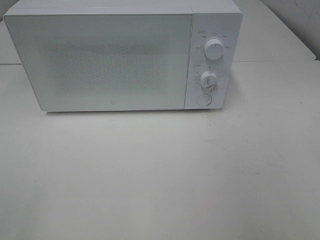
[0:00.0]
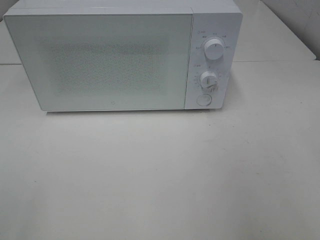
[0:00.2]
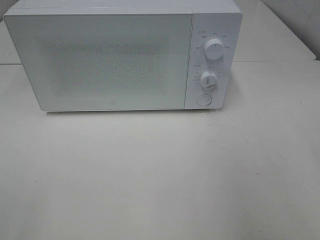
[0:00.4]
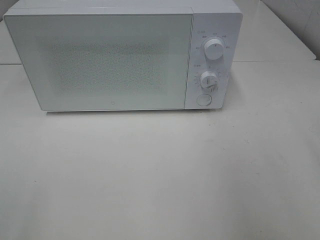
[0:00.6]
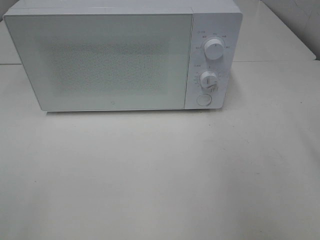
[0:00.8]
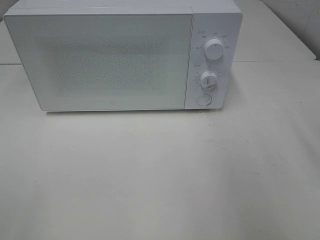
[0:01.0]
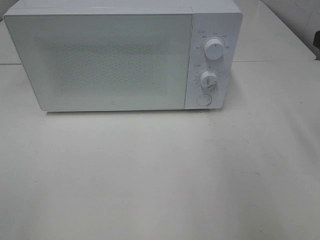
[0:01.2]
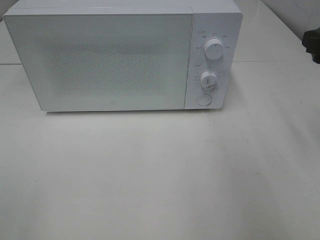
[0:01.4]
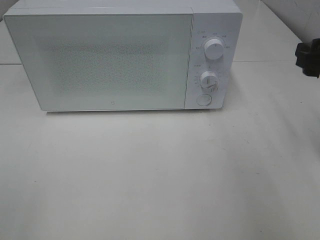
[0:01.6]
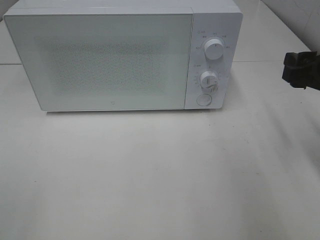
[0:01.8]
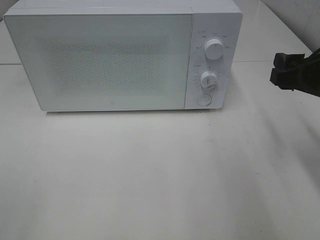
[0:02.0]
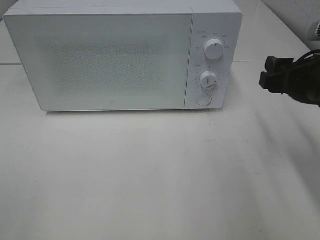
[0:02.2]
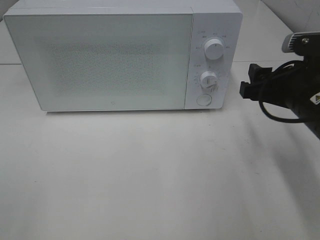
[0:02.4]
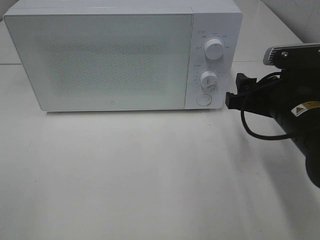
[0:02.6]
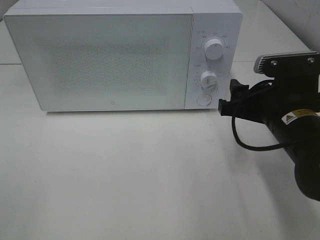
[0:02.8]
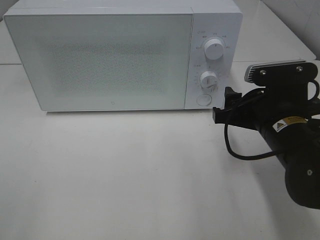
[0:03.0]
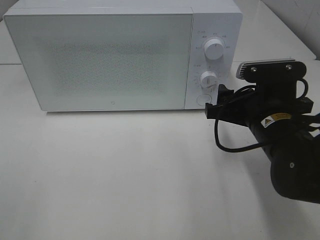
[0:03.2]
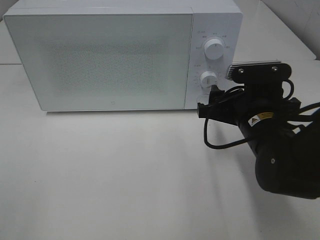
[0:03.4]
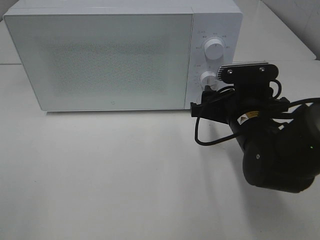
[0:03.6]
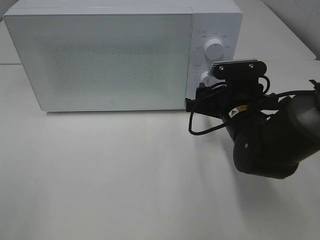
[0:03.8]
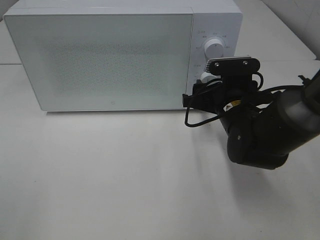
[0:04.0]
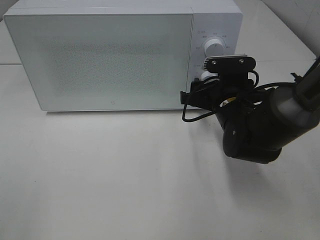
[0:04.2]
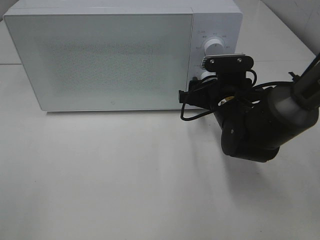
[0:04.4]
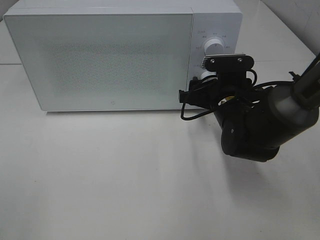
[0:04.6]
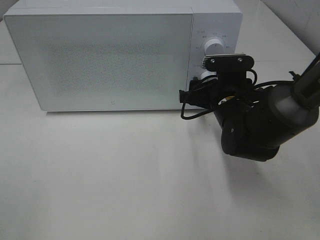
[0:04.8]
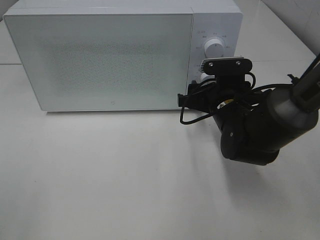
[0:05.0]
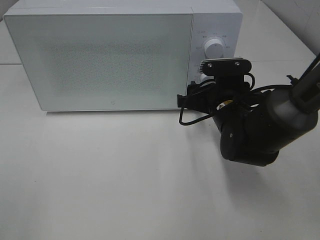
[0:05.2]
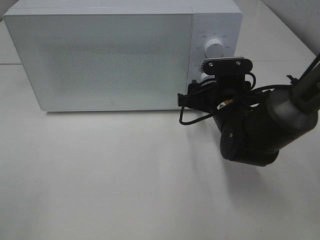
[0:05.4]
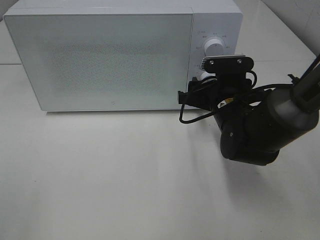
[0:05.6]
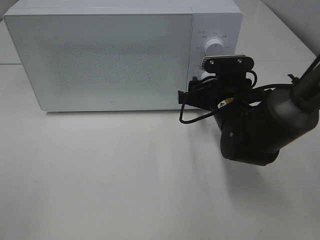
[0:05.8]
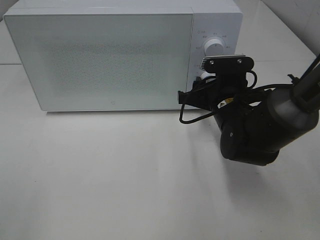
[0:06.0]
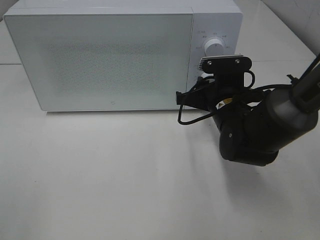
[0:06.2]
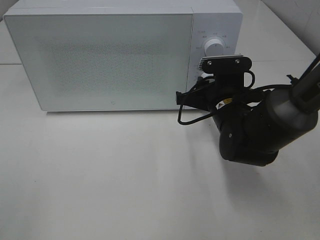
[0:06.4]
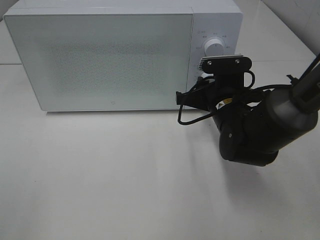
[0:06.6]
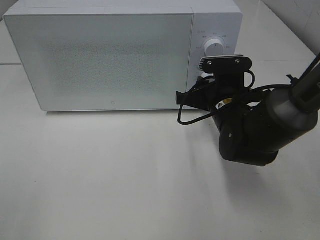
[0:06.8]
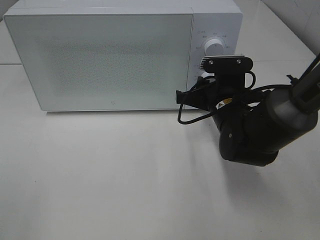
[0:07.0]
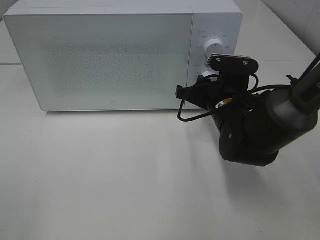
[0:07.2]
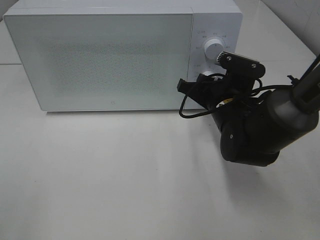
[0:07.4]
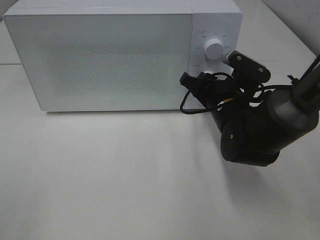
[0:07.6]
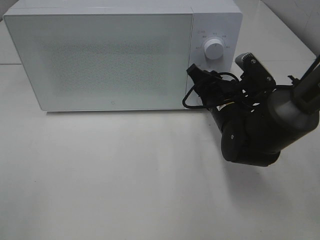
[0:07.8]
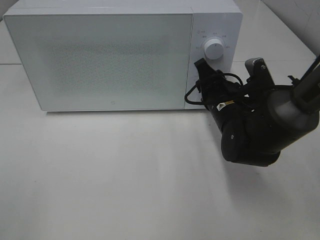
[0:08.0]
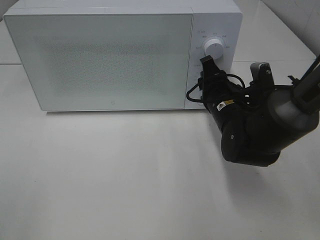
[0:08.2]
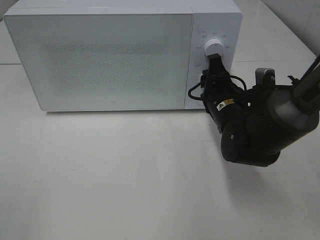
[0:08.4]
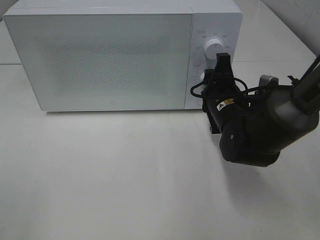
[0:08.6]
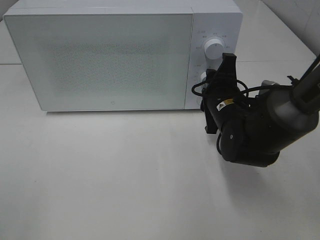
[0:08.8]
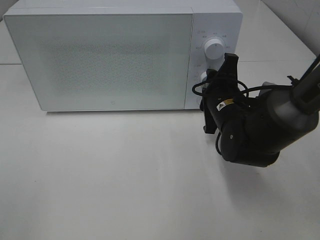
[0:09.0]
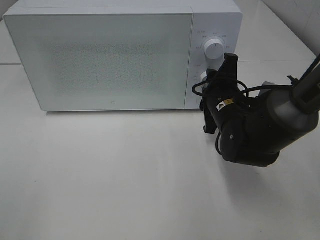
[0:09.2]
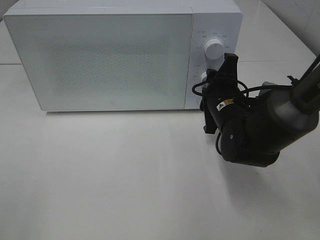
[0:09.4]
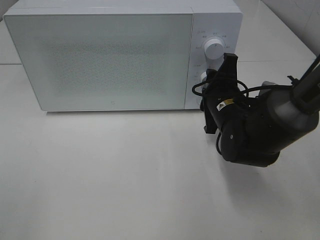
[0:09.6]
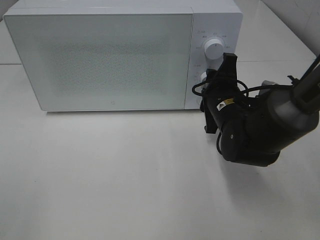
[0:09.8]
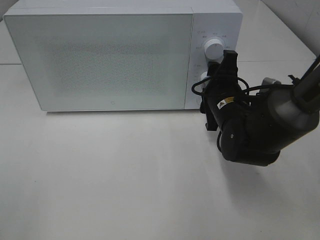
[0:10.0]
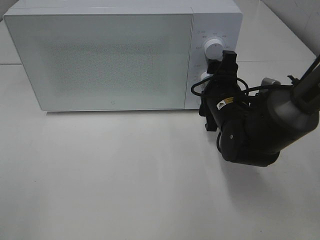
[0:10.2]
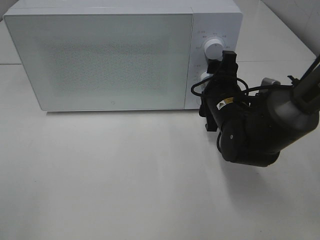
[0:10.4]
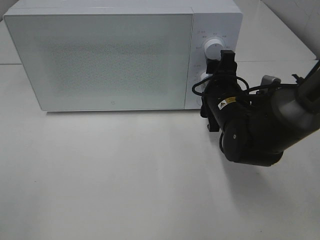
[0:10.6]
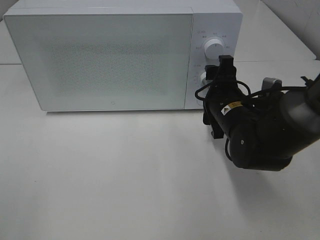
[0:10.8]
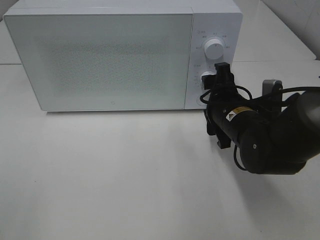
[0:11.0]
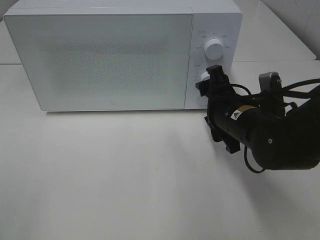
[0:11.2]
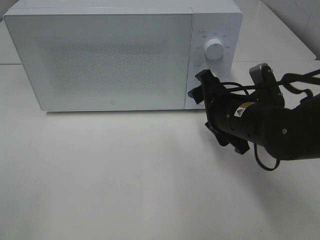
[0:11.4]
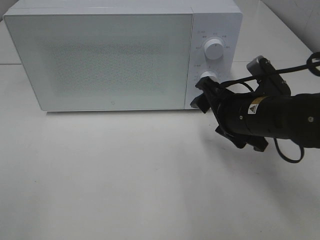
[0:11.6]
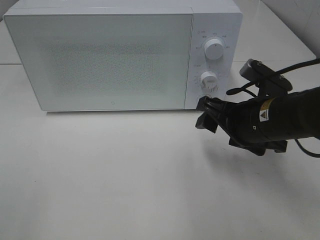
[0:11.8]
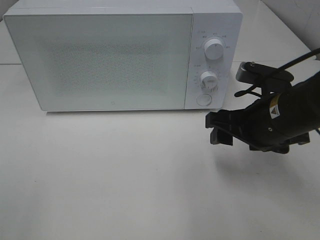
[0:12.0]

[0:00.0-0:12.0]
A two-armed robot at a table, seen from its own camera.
Task of the whole recording: Heat Sandwich.
Step, 0:00.0 to 0:10.6: Right hand: twist timer button.
0:00.0 to 0:01.6: The right gripper heads forward and downward, covering approximately 20 cm.
0:01.6 to 0:03.0: The right gripper moves to the left and downward, roughly 15 cm.
0:03.0 to 0:04.4: The right gripper is displaced forward by some 10 cm.
0:04.4 to 0:06.0: Neither gripper changes place.
0:09.0 to 0:10.4: Both grippers stay put.
0:10.4 to 0:12.0: The right gripper travels backward and upward by roughly 10 cm.

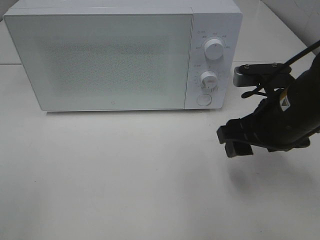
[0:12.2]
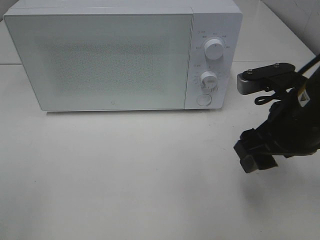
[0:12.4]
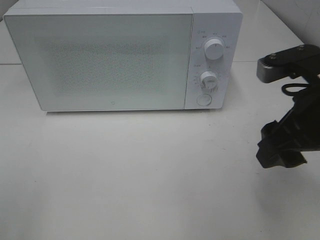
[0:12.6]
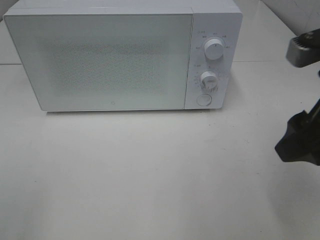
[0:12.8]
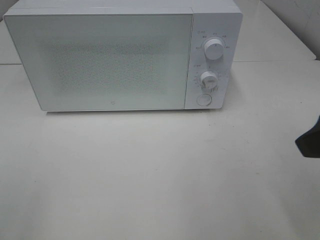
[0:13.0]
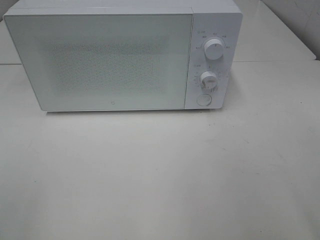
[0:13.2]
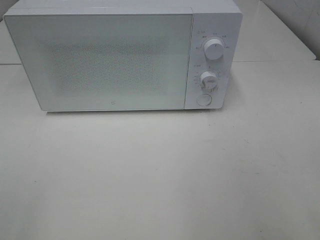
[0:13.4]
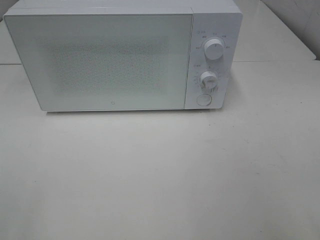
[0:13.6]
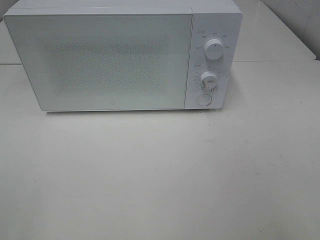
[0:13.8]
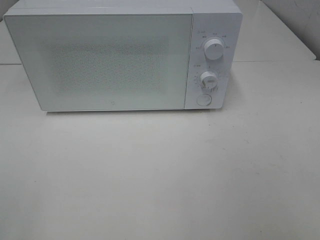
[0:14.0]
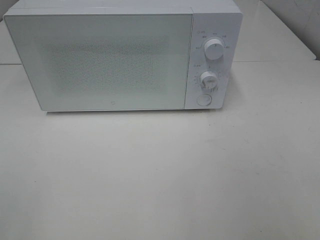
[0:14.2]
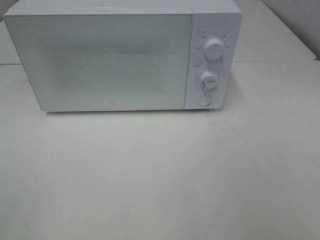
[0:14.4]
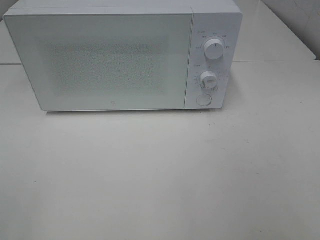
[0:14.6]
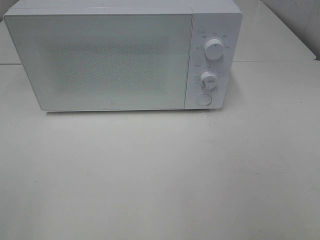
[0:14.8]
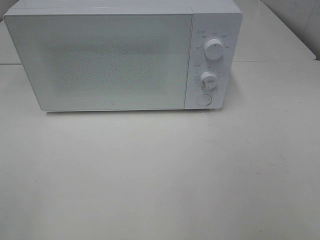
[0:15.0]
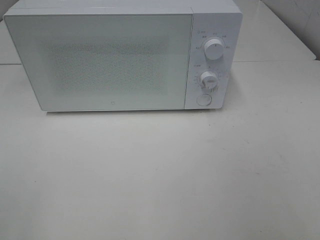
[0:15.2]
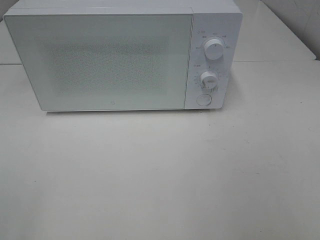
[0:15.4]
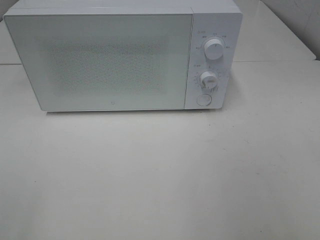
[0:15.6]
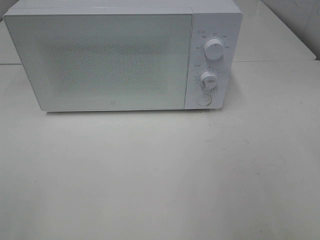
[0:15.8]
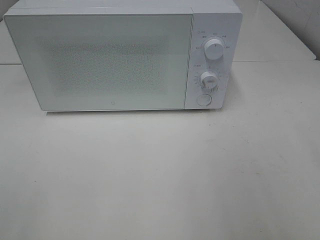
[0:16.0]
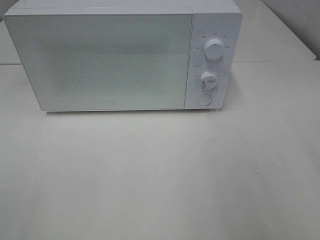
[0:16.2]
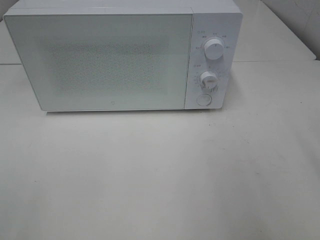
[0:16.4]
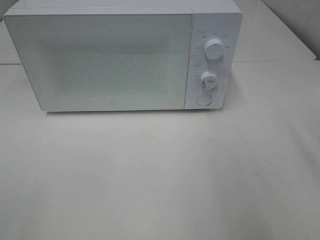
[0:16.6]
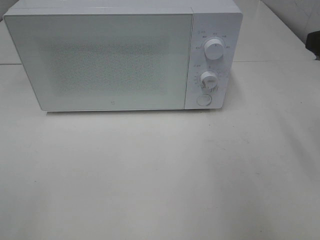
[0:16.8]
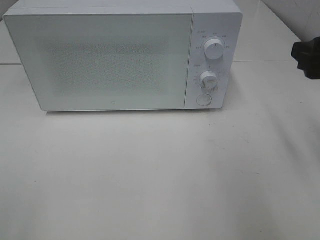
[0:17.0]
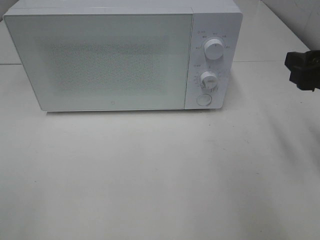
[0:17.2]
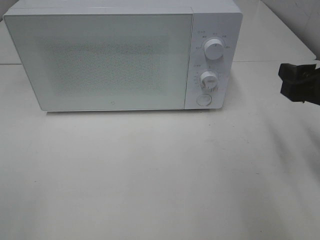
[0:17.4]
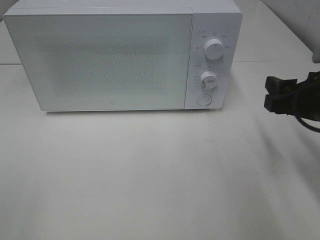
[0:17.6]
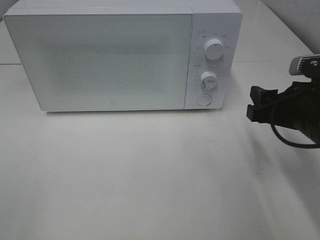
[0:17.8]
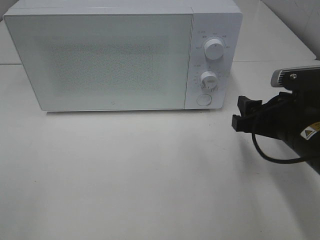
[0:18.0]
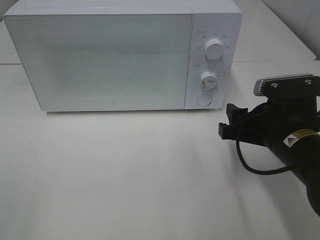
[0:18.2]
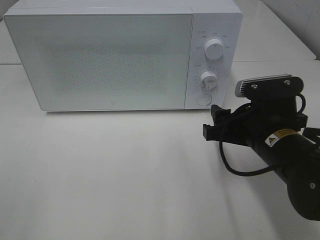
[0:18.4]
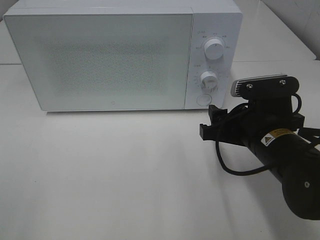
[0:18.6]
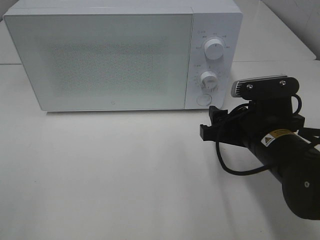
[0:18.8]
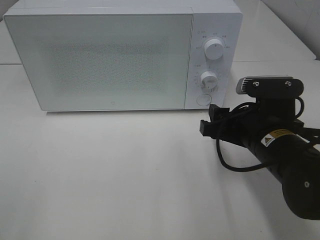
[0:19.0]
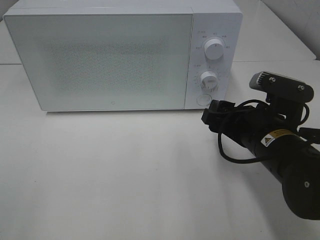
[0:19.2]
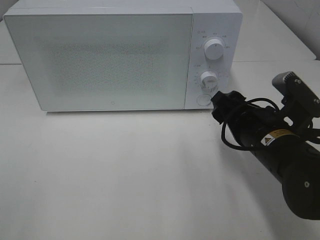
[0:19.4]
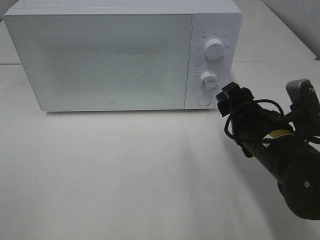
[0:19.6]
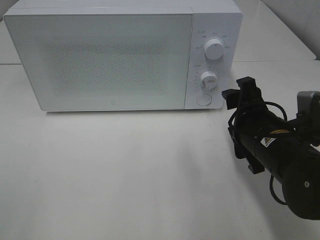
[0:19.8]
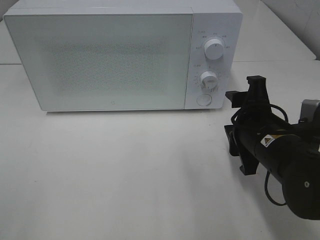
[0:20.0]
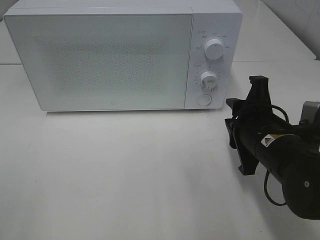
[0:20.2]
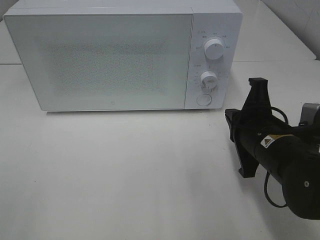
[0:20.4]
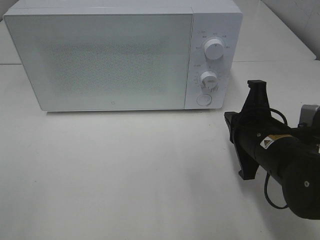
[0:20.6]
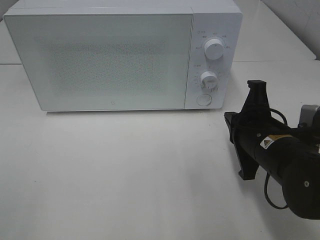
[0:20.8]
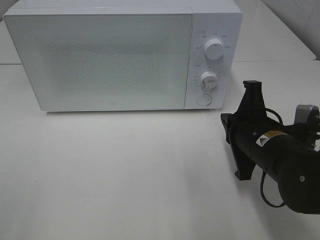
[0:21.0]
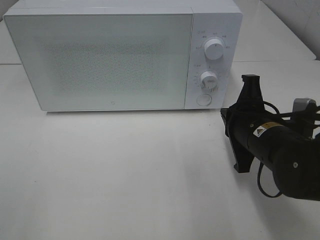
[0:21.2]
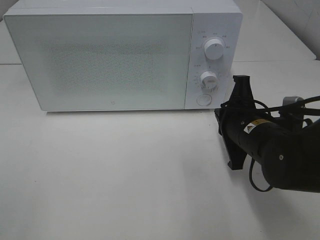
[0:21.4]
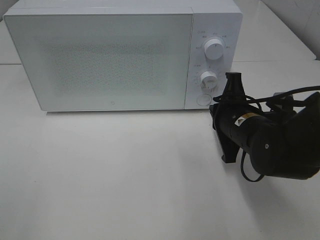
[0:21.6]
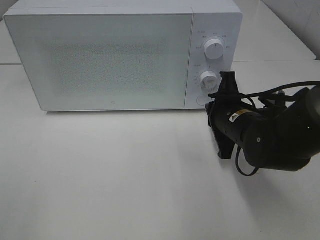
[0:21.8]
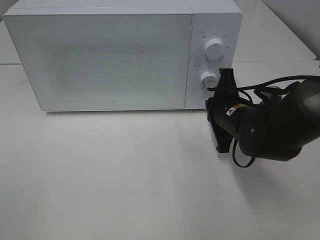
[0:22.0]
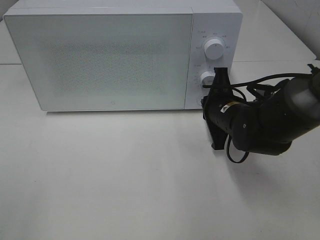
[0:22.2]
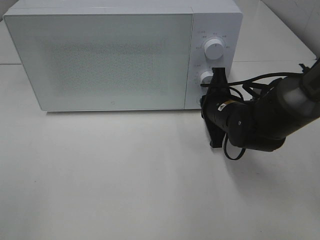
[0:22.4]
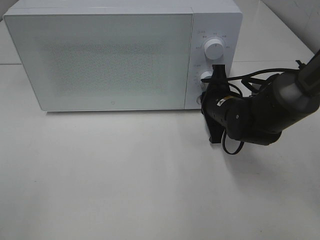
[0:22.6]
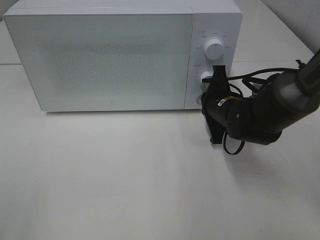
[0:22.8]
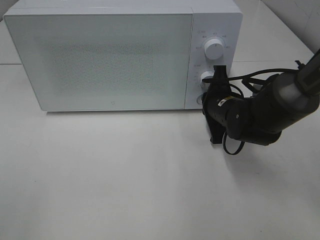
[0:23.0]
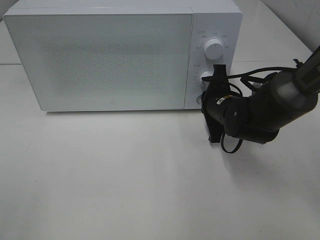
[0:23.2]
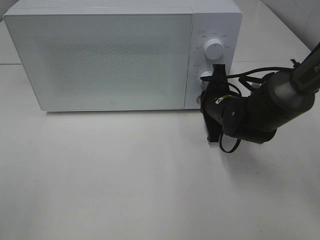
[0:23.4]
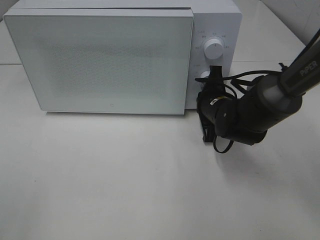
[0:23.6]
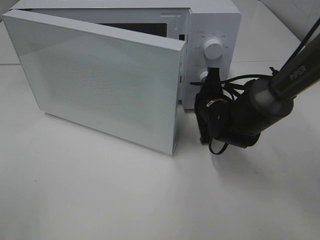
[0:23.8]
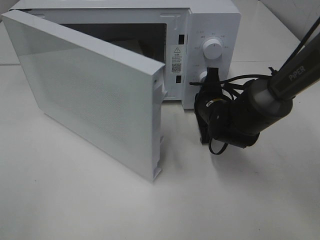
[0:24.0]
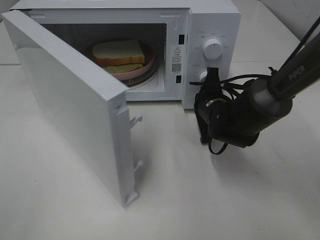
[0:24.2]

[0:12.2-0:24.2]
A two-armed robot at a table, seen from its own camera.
Task of the whole recording: Heat Sandwich.
0:12.2 to 0:13.8: The right gripper goes about 25 cm backward, to the right and upward.
0:16.6 to 0:18.2: The right gripper is displaced downward and to the left by some 20 cm.
0:19.8 to 0:21.2: The right gripper closes up.
0:21.2 to 0:22.6: The right gripper heads forward, covering about 10 cm.
